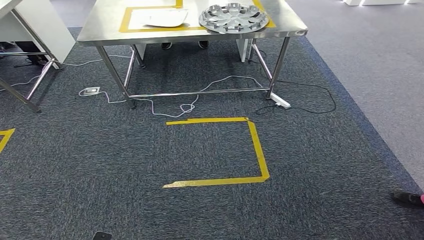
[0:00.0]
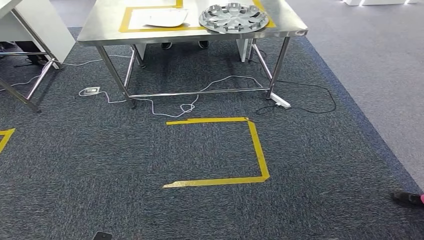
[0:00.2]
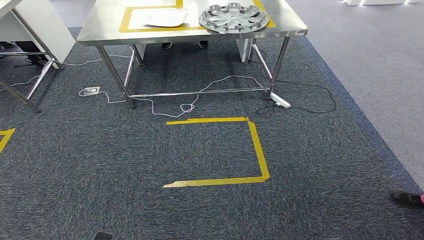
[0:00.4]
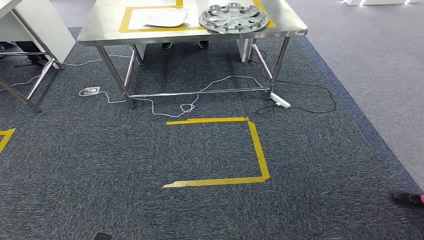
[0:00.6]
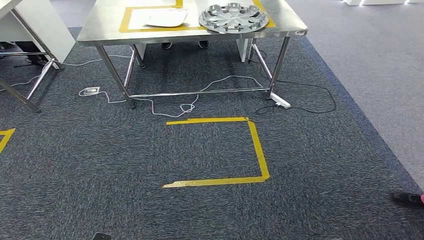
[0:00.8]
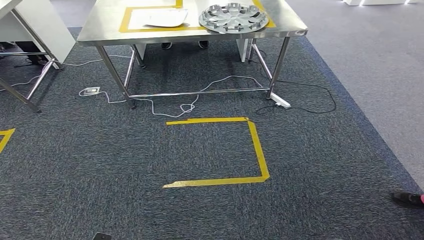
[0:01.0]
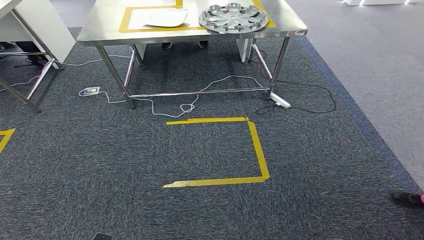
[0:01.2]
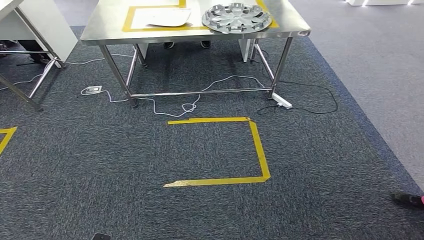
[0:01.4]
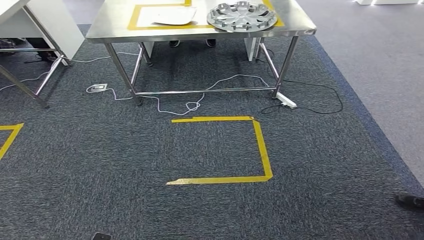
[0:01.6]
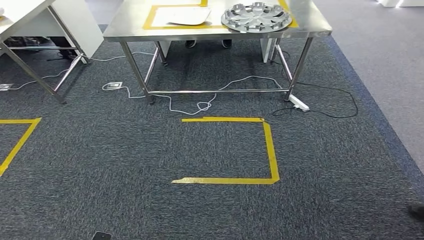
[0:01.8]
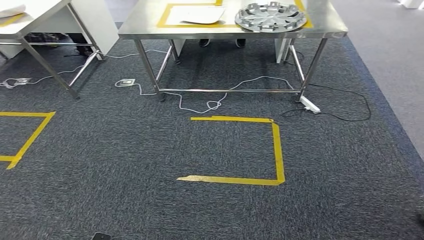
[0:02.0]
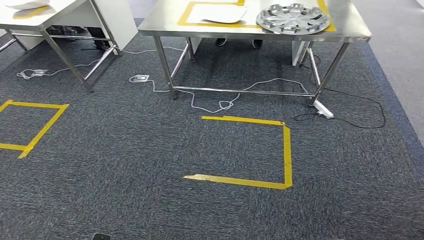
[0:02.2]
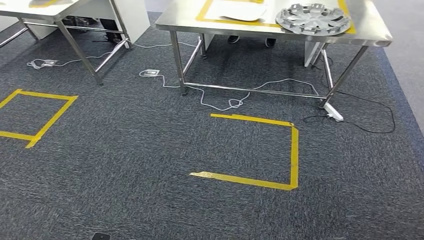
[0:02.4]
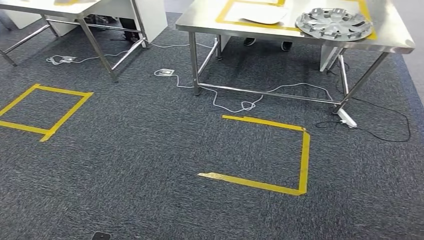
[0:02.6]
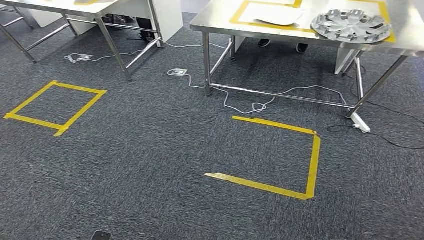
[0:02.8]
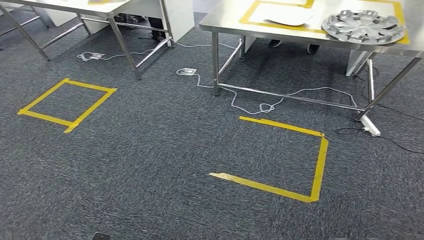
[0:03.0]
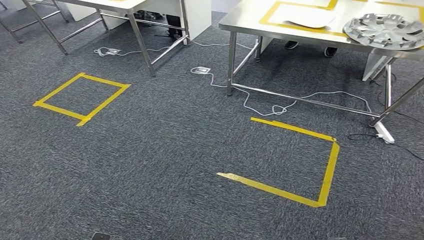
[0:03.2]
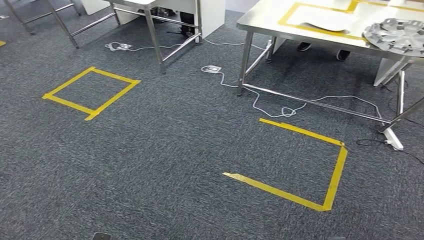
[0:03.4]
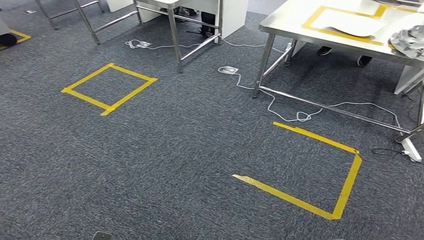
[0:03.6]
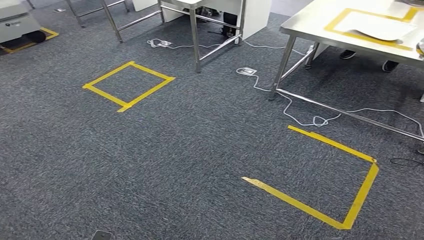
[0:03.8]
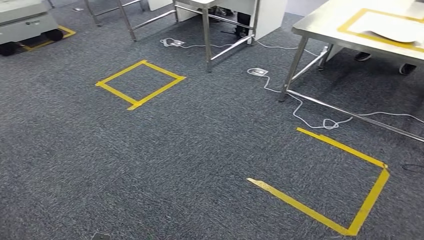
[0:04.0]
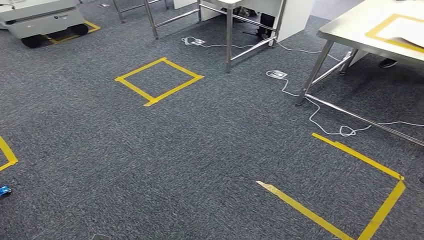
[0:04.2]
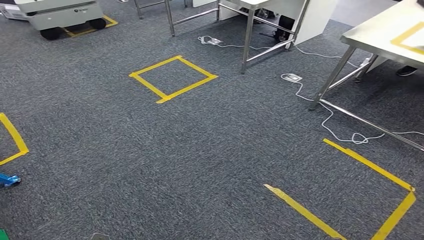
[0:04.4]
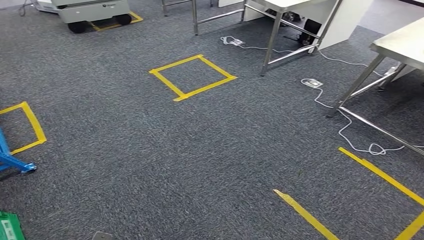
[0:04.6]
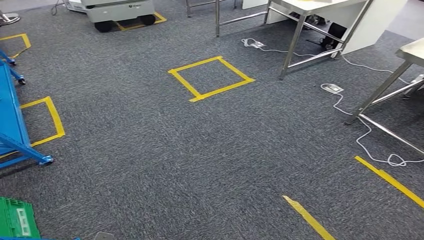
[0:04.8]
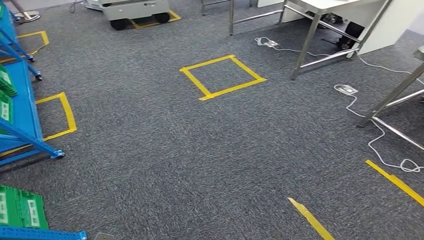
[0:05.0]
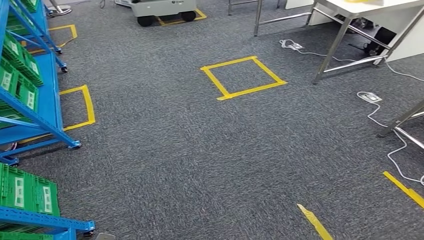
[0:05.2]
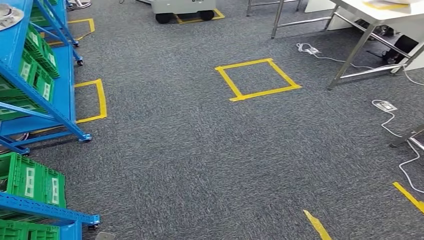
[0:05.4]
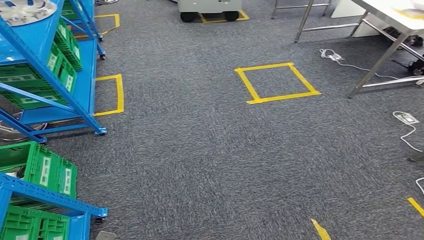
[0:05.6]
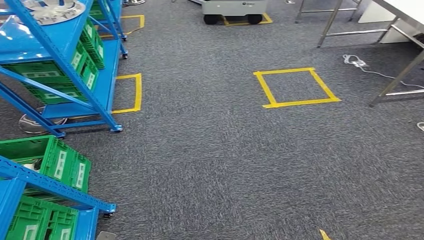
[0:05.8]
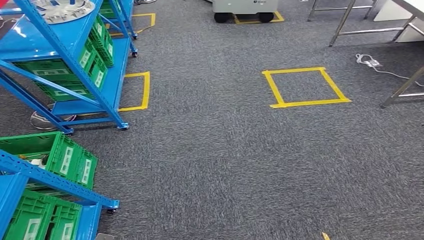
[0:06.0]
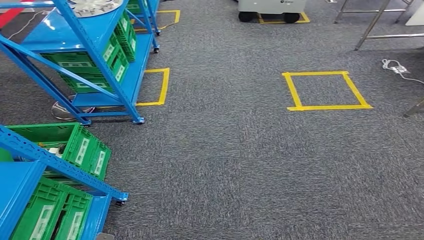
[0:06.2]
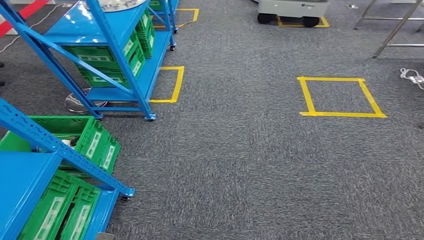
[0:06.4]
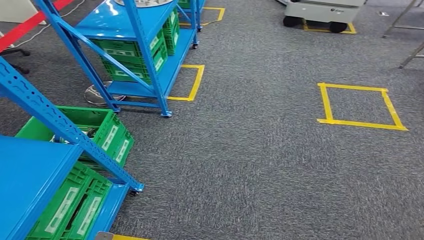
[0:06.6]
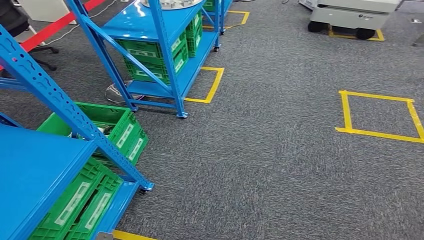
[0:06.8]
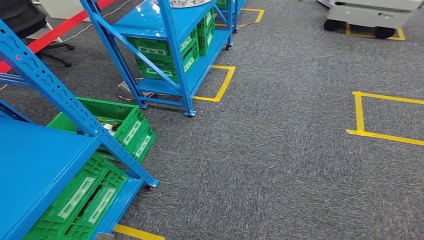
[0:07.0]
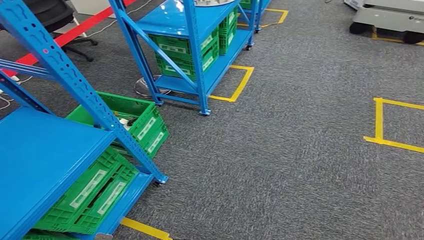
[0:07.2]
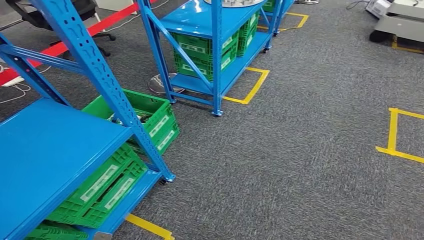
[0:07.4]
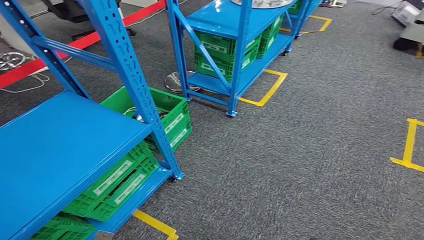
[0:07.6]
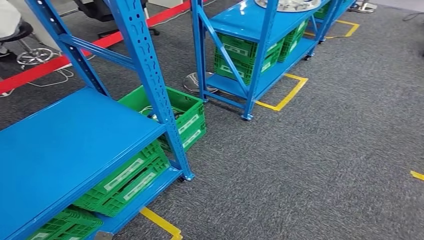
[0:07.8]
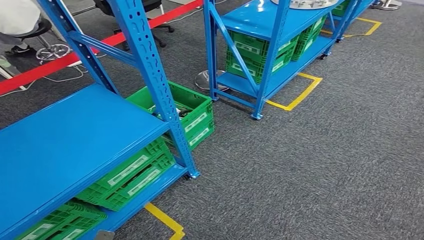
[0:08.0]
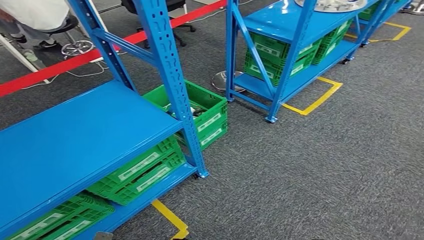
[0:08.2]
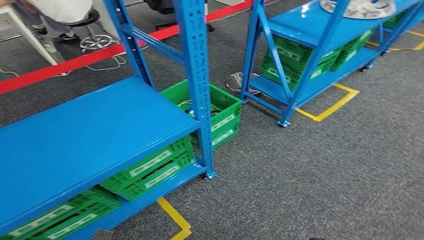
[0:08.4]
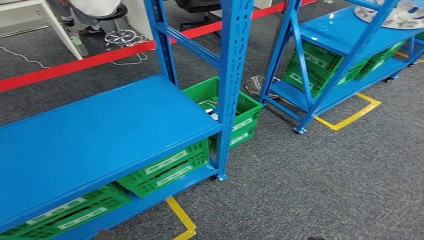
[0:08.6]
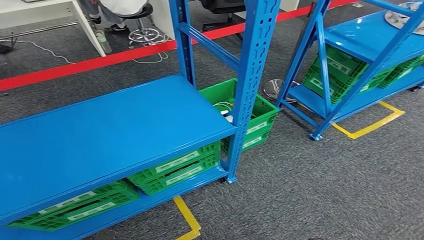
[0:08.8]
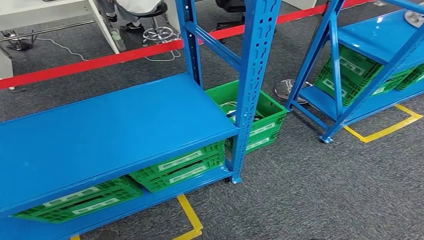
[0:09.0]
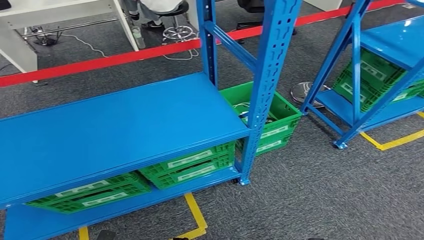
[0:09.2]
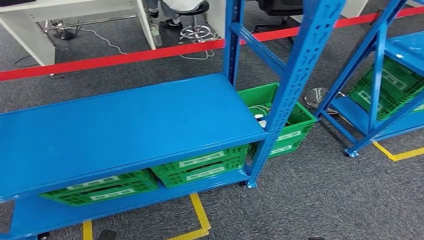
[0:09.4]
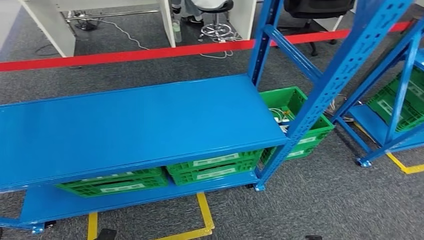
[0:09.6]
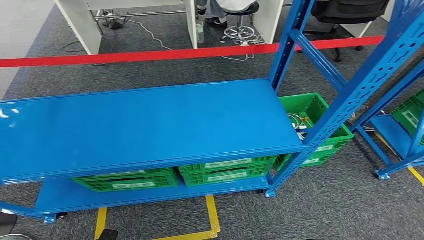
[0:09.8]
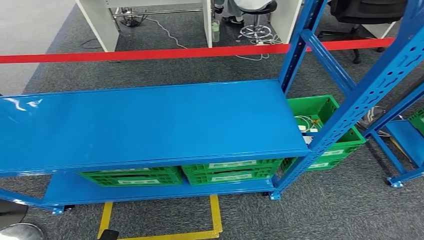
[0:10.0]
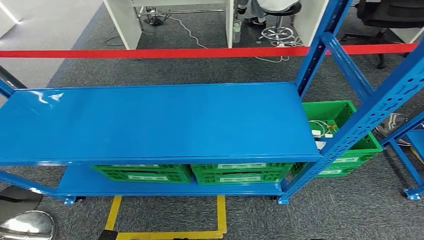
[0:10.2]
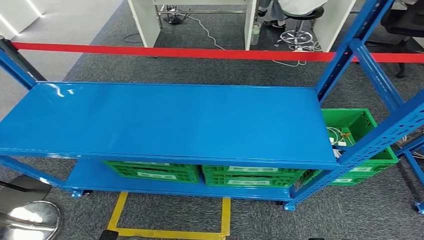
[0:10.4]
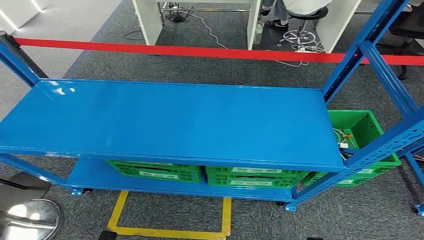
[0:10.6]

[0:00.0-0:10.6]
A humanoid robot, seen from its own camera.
Step, 0:00.0 to 0:10.4: Return to the initial position at the workbench.
0:00.0 to 0:01.6: Neither hand changes place.

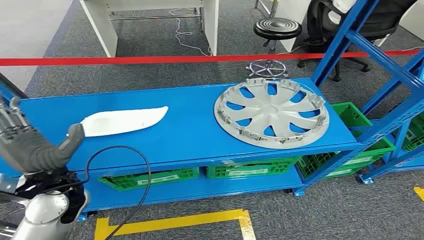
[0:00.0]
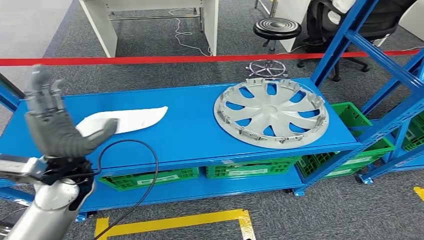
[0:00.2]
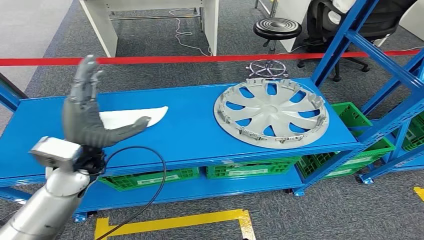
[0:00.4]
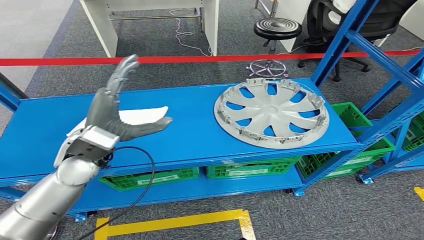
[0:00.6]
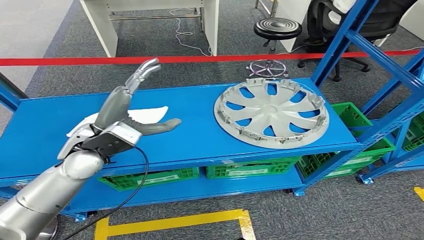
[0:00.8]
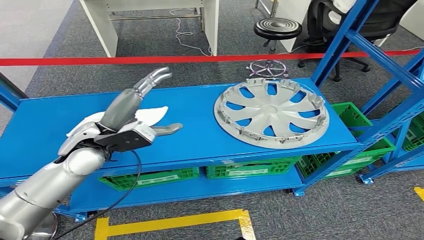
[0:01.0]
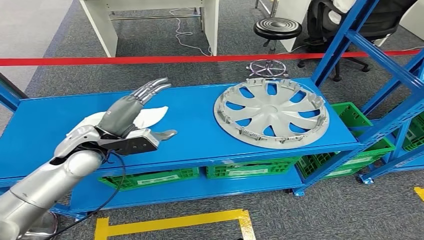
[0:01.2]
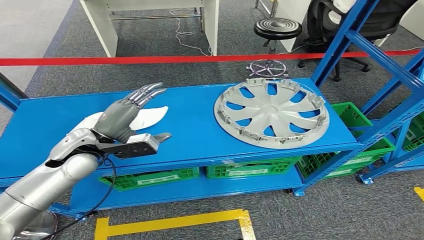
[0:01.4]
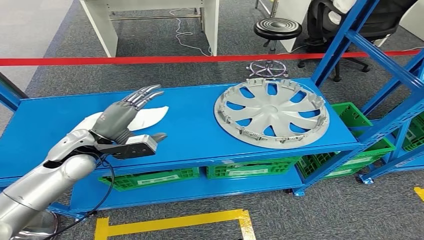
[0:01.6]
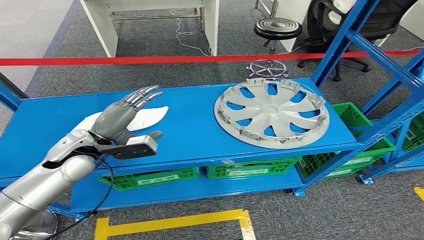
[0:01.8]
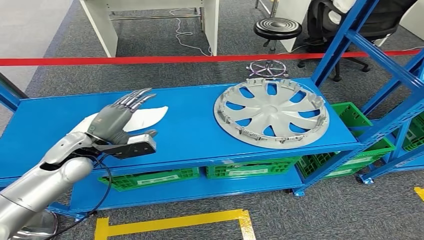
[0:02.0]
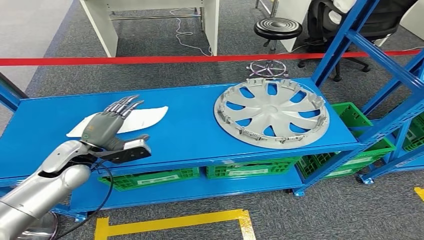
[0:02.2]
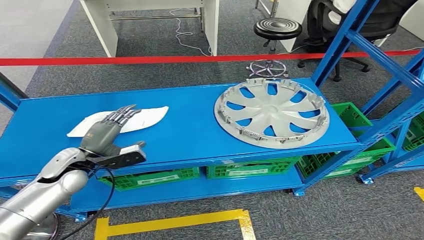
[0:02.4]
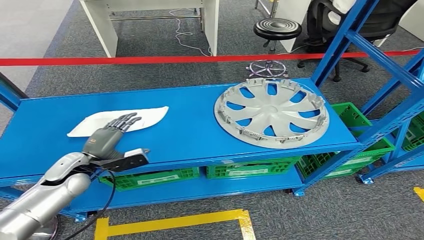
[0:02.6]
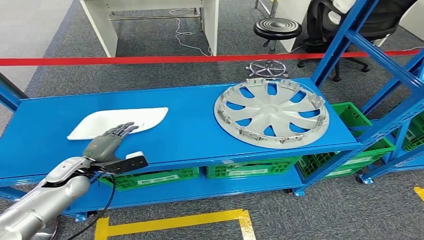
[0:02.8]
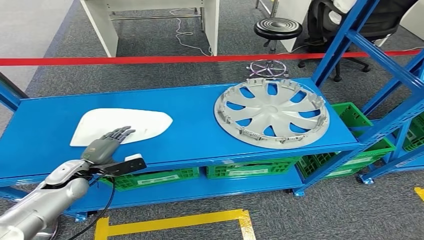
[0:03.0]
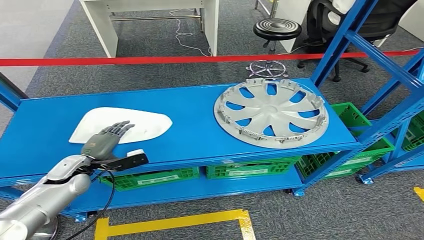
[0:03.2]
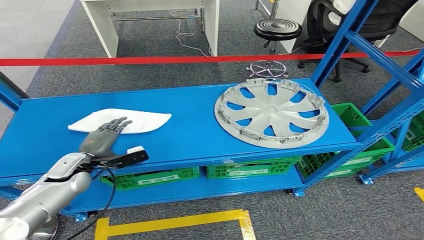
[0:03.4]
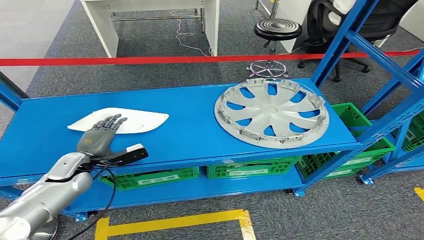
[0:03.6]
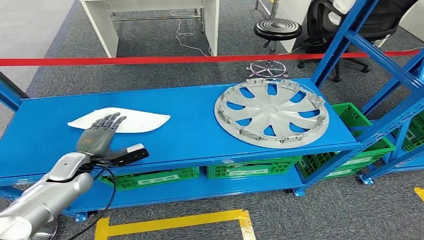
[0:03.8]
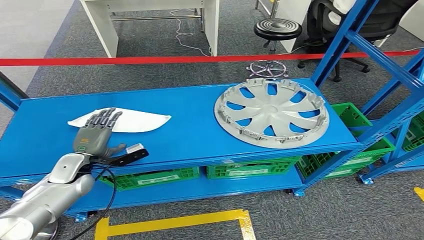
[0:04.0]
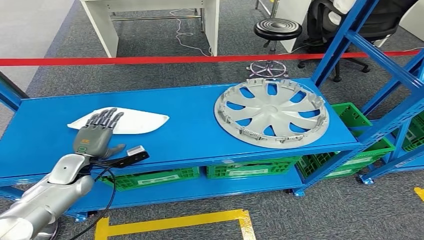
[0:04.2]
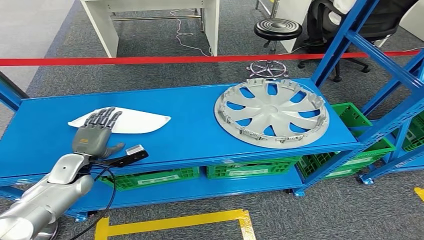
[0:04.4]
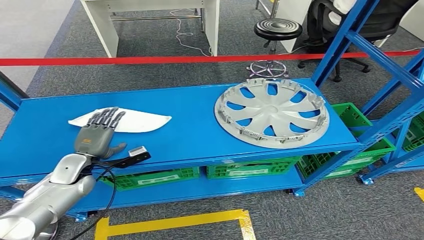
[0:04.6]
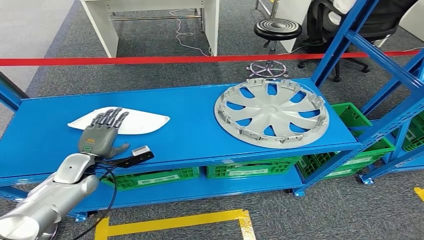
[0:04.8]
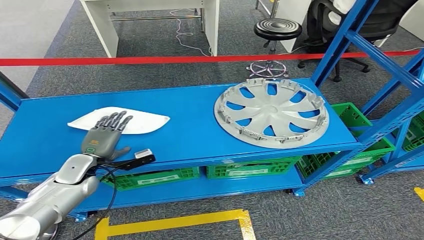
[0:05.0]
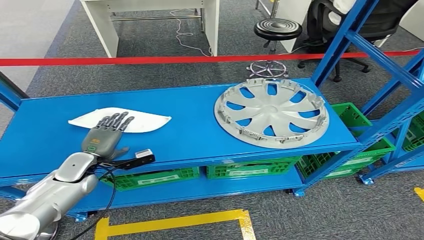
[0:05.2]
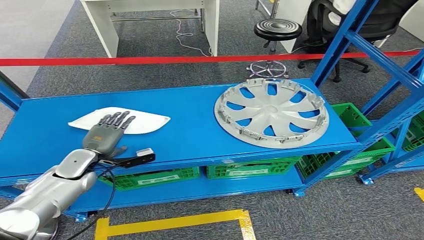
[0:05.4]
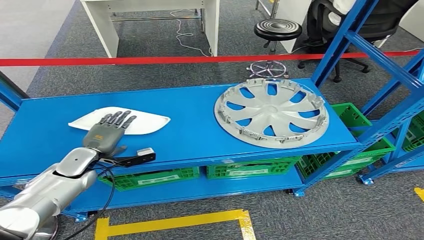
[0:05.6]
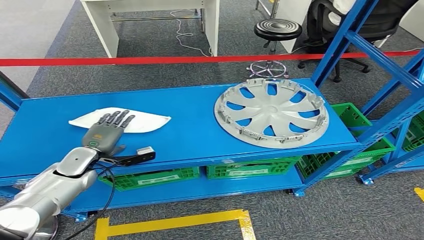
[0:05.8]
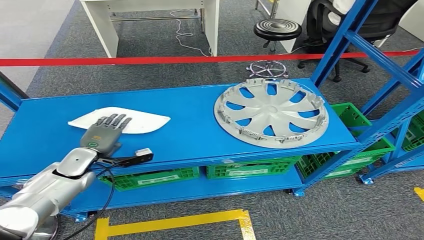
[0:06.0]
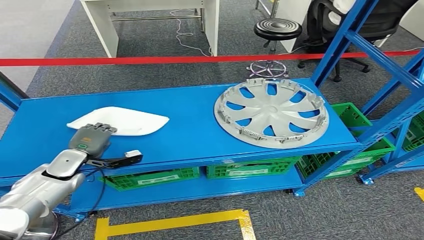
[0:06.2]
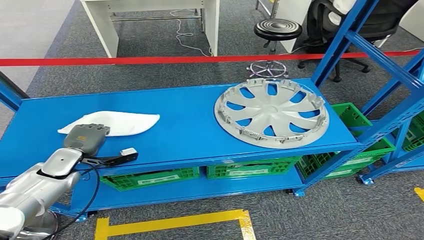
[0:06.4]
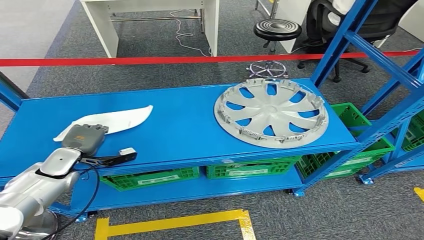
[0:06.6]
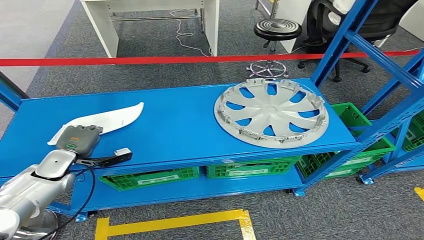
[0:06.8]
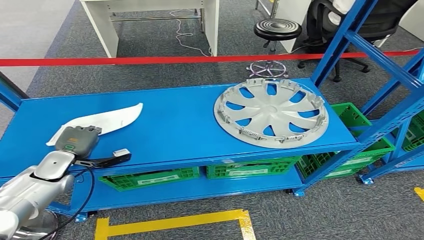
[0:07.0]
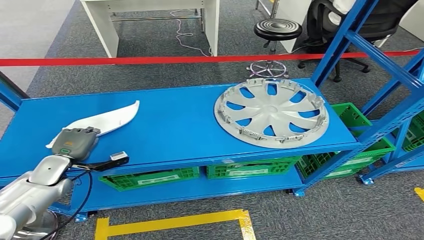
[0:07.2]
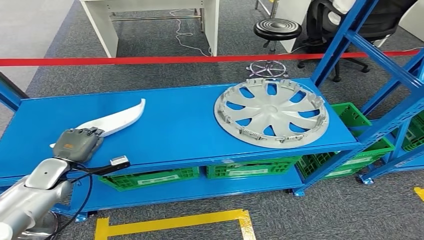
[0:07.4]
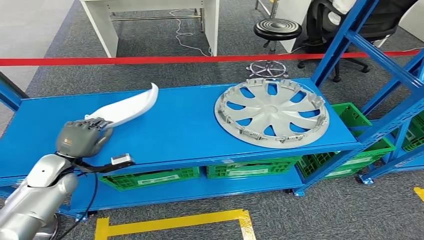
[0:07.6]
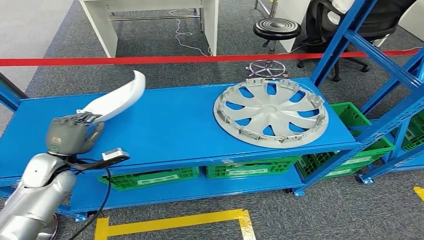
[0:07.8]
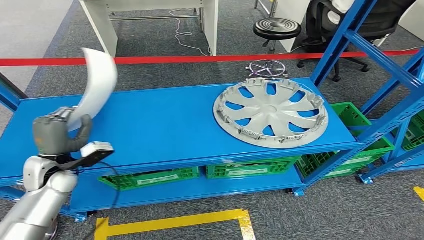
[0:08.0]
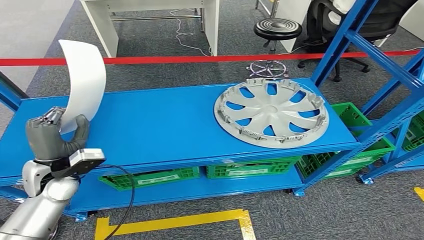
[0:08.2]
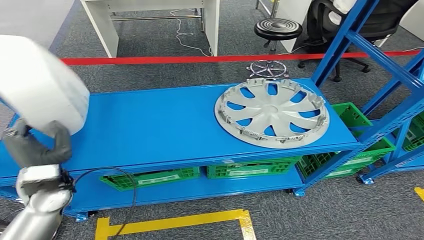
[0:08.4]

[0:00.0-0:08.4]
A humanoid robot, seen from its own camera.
0:01.4 to 0:02.8: The left hand moves downward and to the left, roughly 15 cm.
0:04.2 to 0:05.6: The hands stay close to where they were, moving slightly.
0:05.6 to 0:07.0: The left hand moves to the left, approximately 5 cm.
0:07.0 to 0:08.4: The left hand travels backward and upward by roughly 10 cm.
